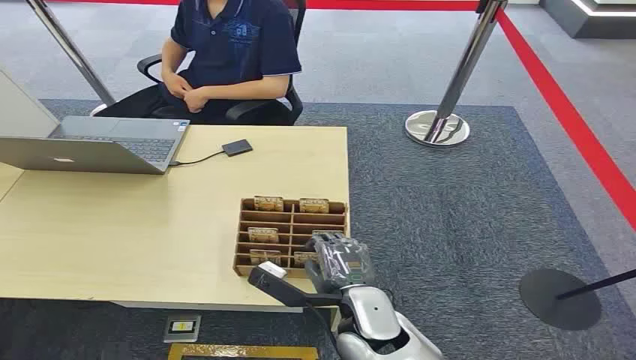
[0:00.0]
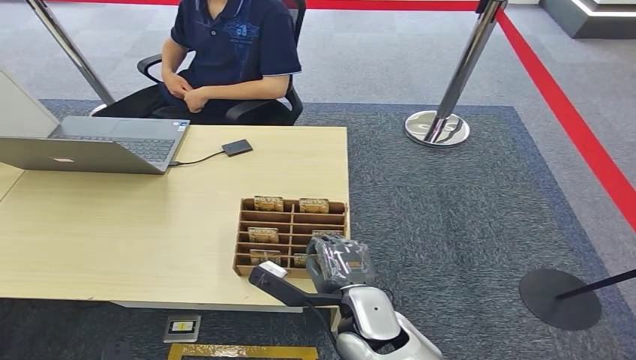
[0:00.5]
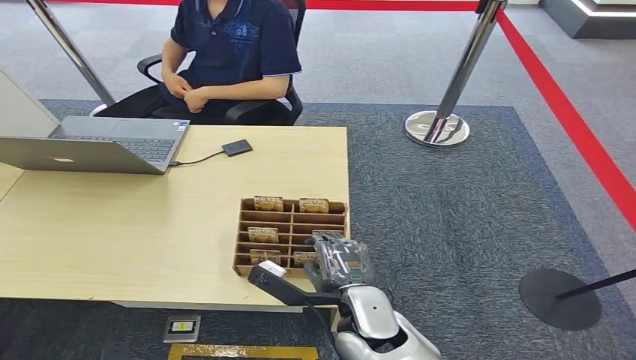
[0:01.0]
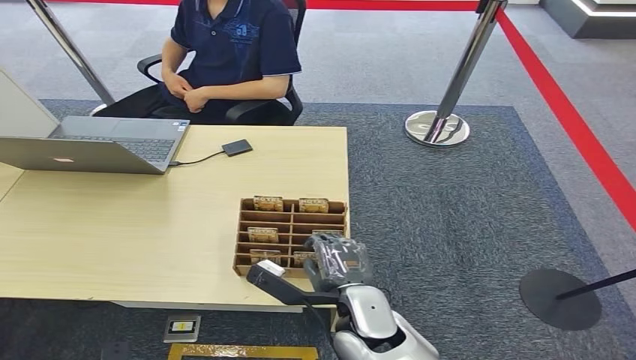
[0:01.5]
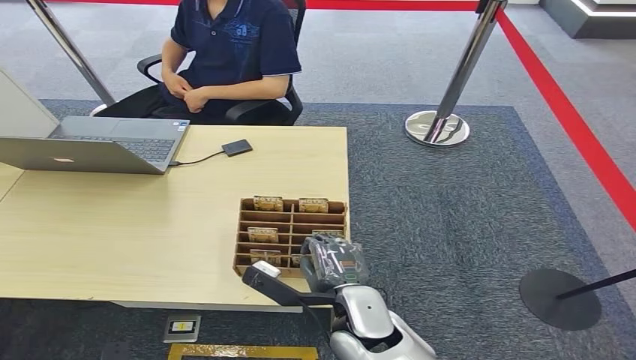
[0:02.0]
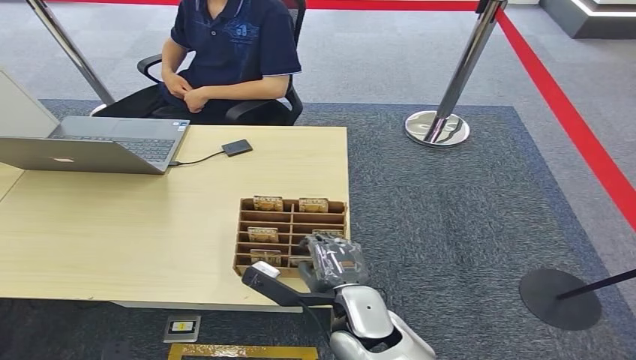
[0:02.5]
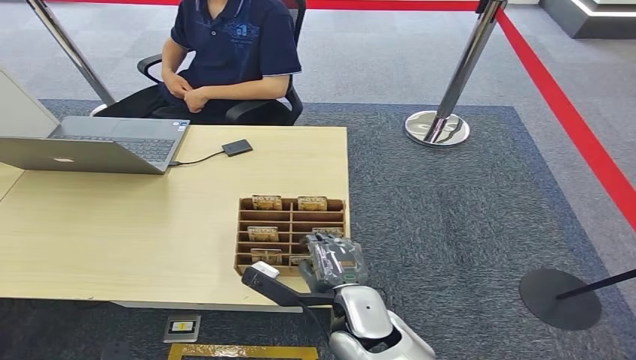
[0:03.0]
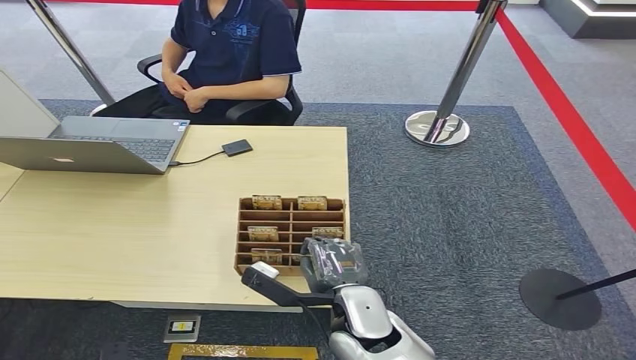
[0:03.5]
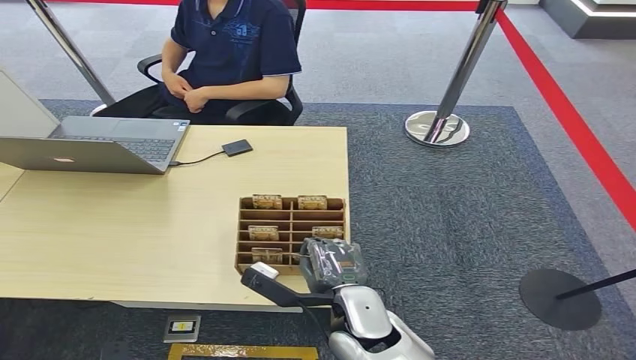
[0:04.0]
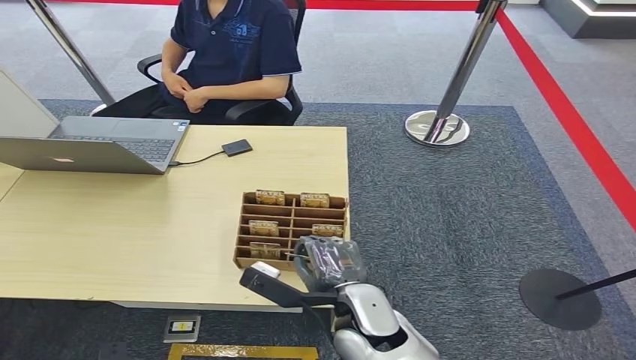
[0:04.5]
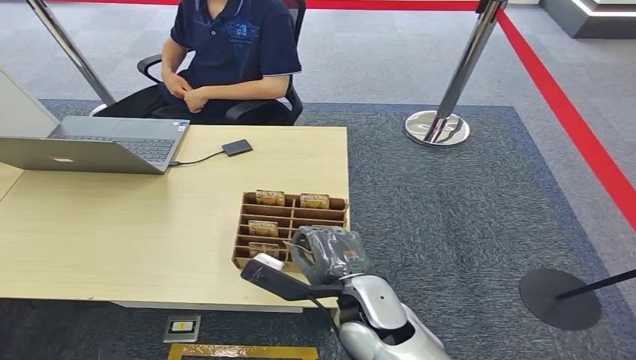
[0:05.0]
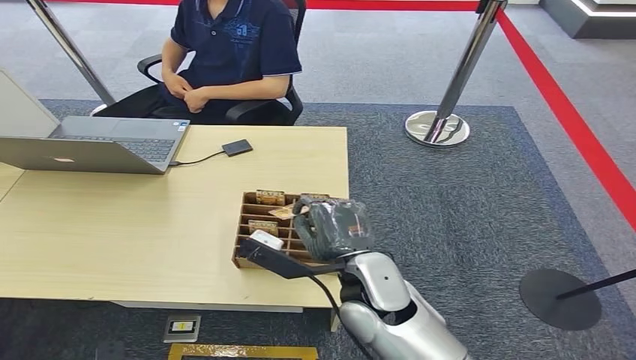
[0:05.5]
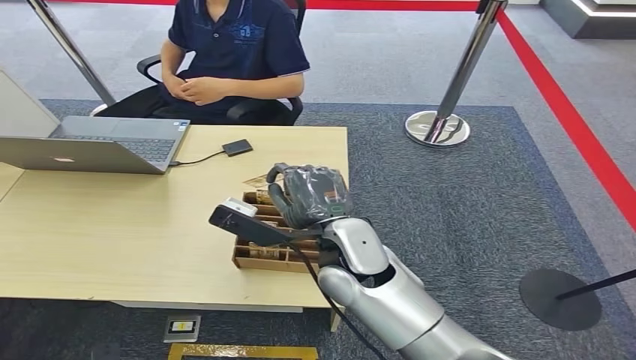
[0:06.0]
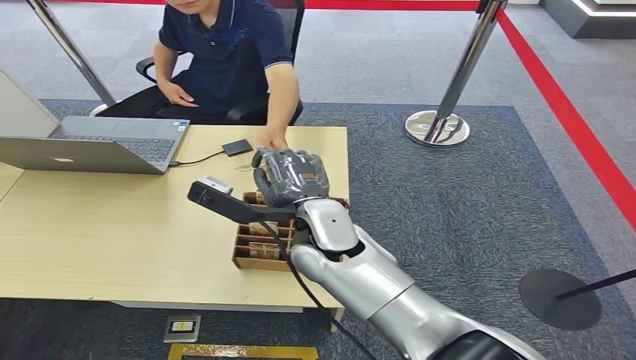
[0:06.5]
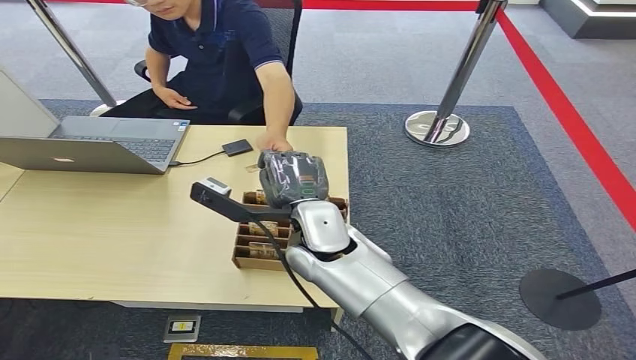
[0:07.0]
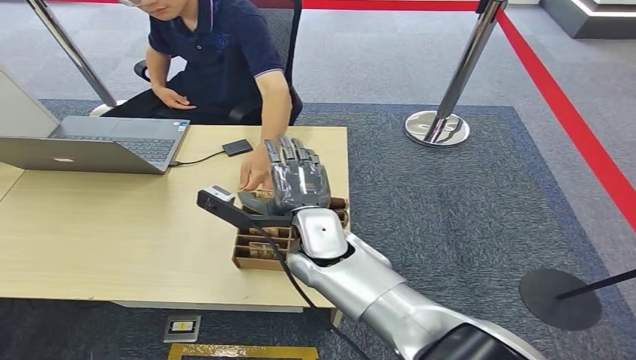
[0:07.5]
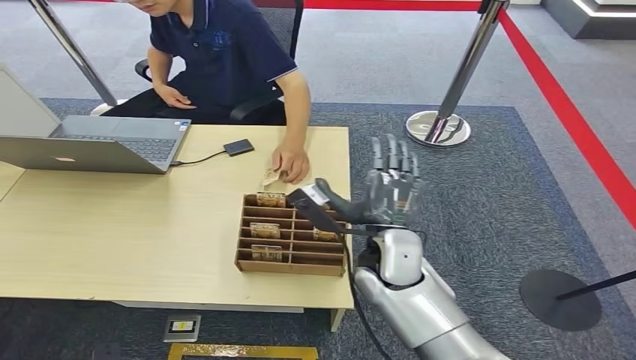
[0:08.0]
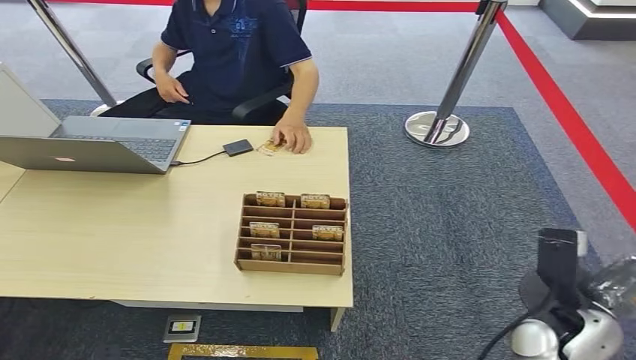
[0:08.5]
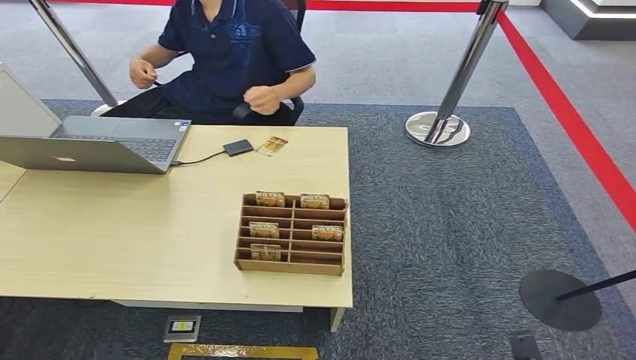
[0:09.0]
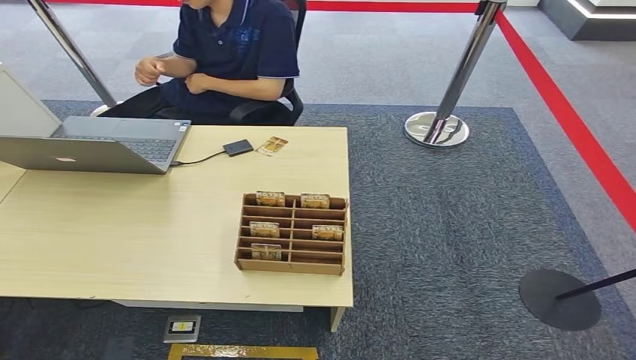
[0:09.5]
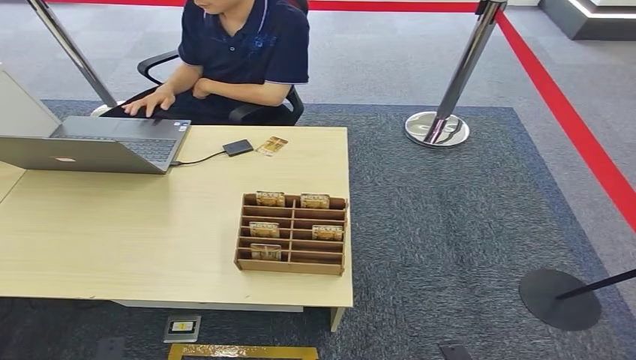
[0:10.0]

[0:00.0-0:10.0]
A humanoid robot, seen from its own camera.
Step, 0:00.0 to 0:05.5: Pick up the key card from the card box.
Step, 0:06.0 to 0:10.0: Hand the key card to the target.
0:02.0 to 0:04.0: Neither hand changes place.
0:04.0 to 0:06.0: The right hand goes about 15 cm upward and forward.
0:06.0 to 0:08.0: The right hand shifts by approximately 5 cm.
0:08.0 to 0:10.0: The right hand travels downward, backward and to the right by some 35 cm.

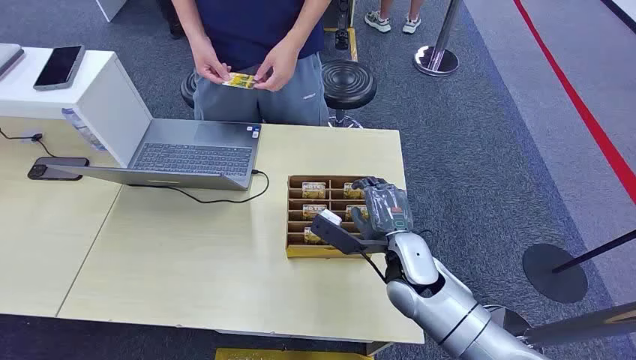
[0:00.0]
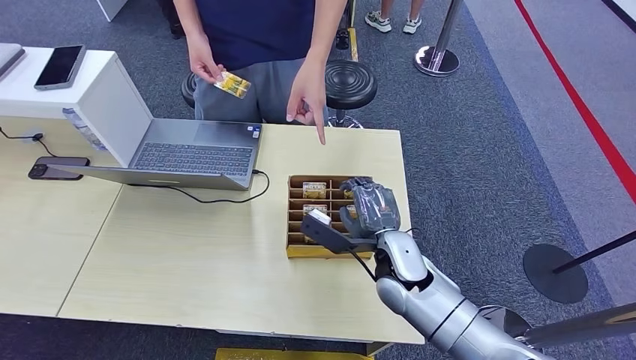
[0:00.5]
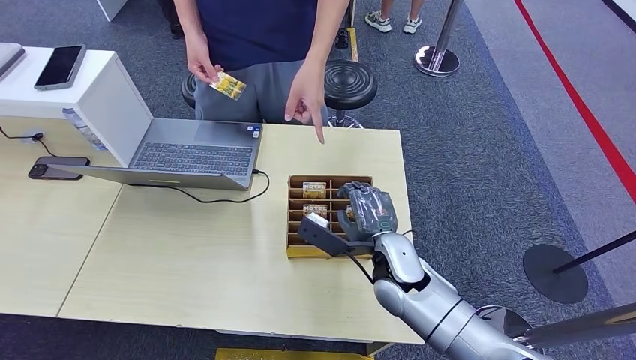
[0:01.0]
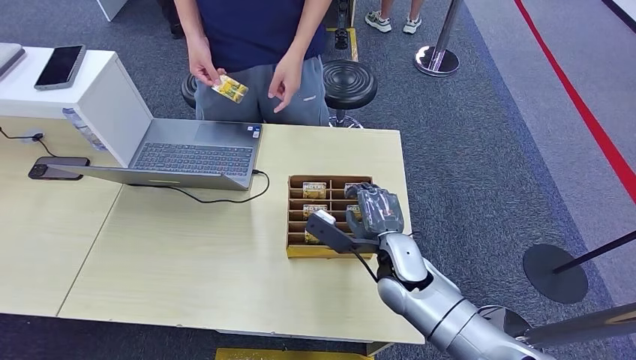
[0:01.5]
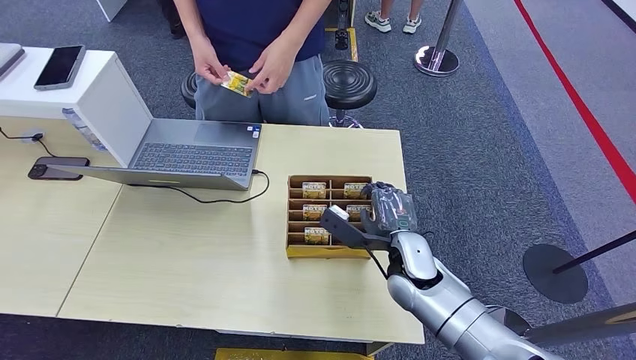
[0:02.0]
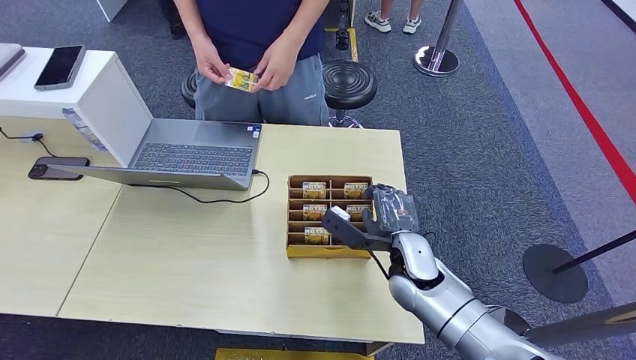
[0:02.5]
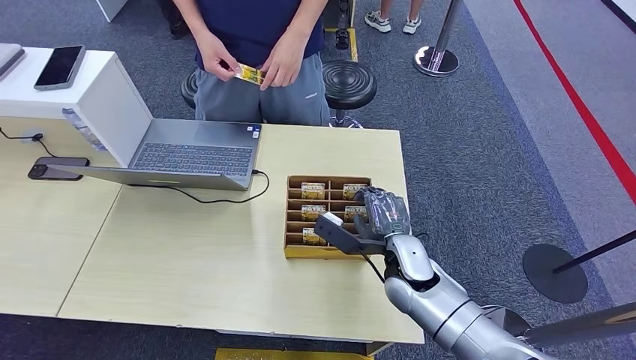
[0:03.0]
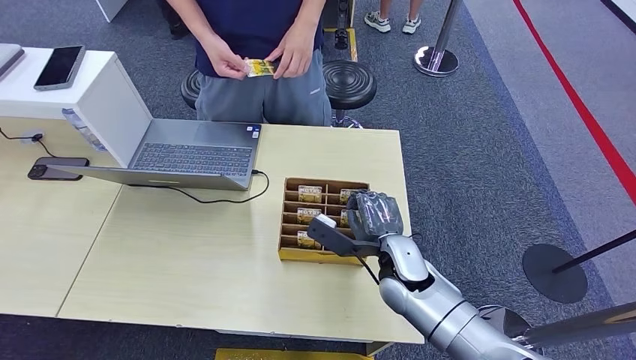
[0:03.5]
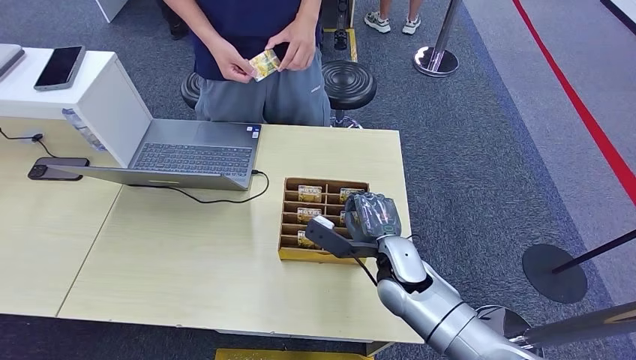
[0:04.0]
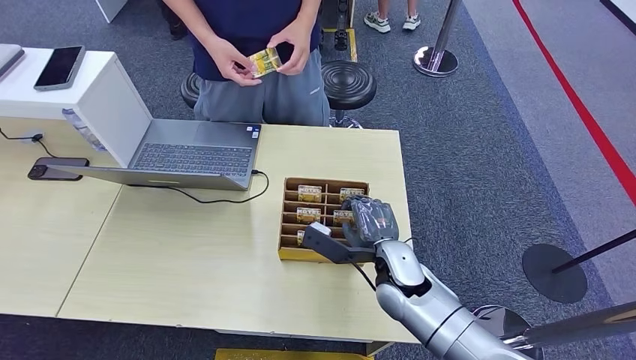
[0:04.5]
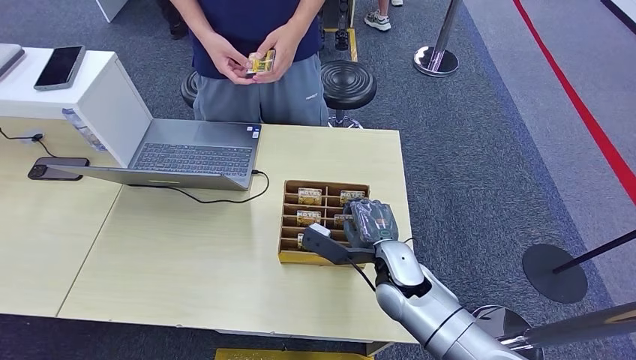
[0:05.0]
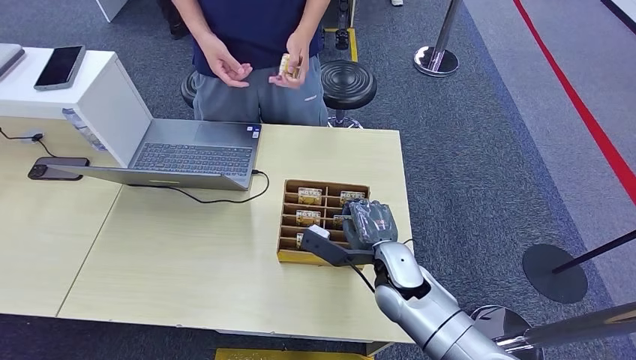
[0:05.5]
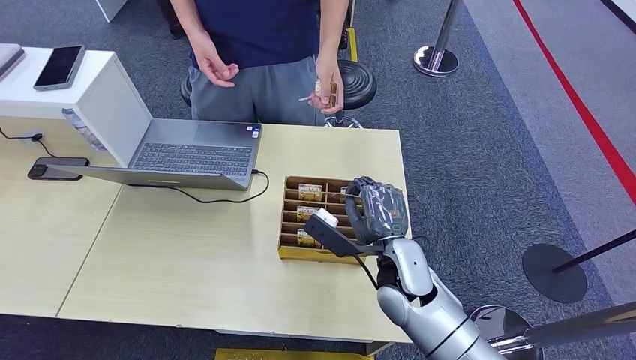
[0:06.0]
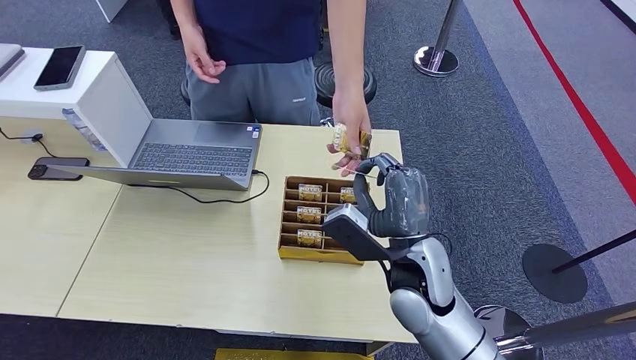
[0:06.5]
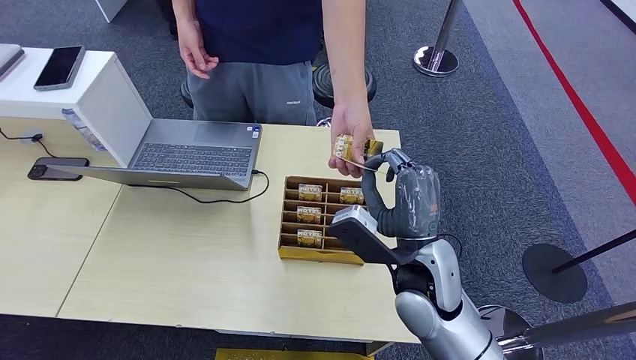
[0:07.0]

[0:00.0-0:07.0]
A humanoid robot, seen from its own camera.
Step, 0:00.0 to 0:06.0: Pick up the key card from the card box.
Step, 0:06.5 to 0:07.0: Hand the key card to the target.
0:02.0 to 0:05.0: Both hands stay about where they are.
0:05.0 to 0:07.0: The right hand shifts about 10 cm upward.
